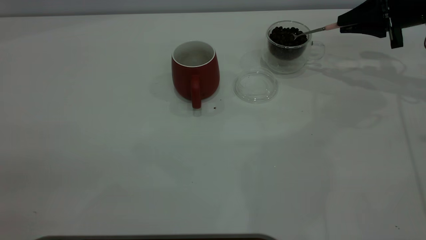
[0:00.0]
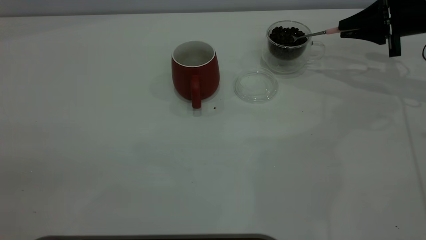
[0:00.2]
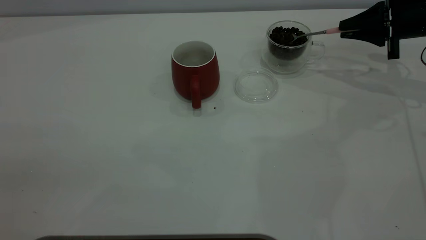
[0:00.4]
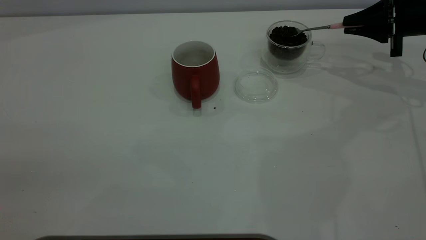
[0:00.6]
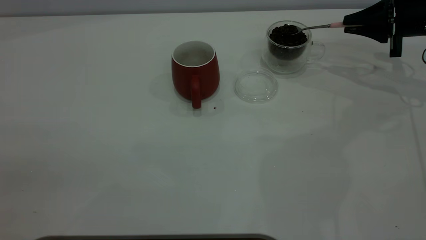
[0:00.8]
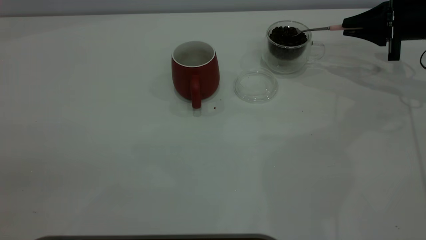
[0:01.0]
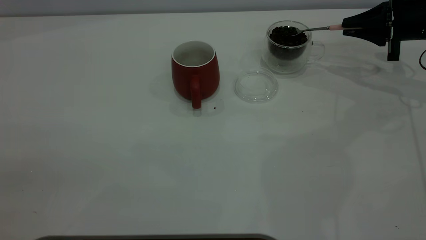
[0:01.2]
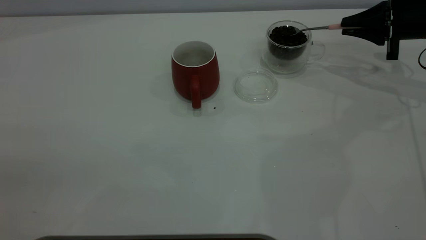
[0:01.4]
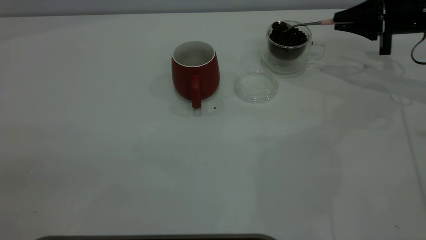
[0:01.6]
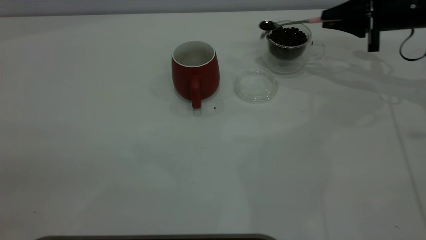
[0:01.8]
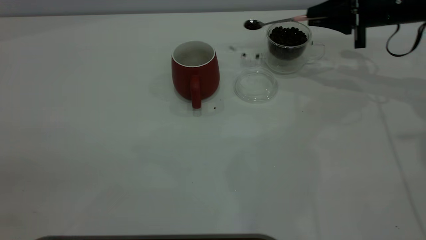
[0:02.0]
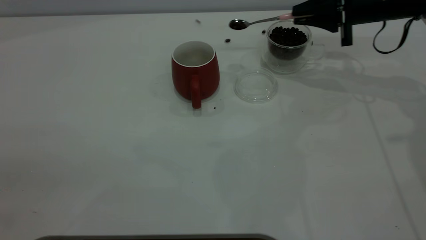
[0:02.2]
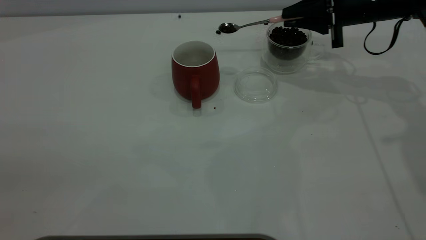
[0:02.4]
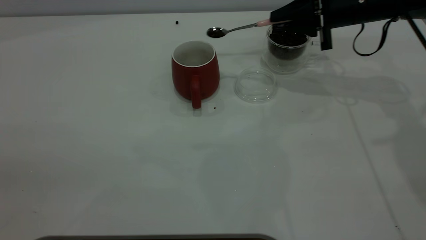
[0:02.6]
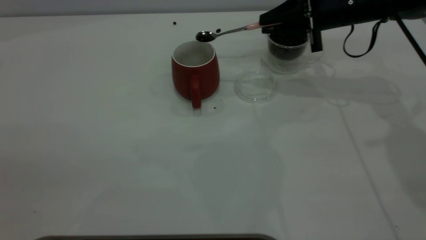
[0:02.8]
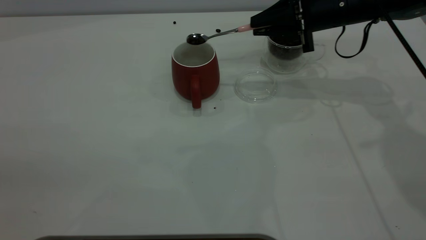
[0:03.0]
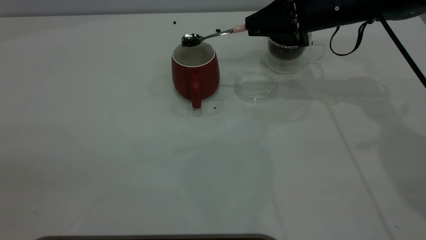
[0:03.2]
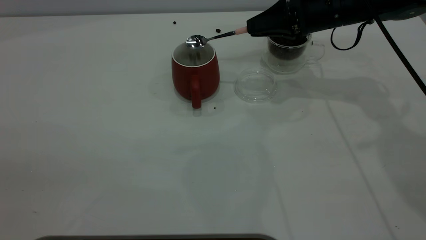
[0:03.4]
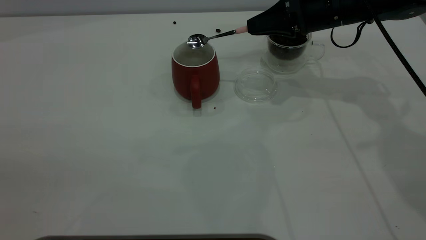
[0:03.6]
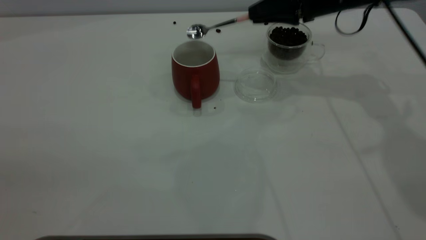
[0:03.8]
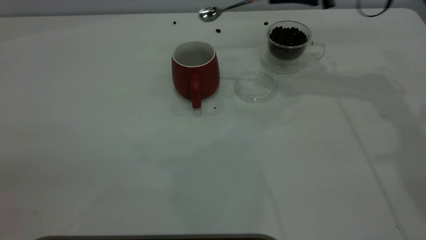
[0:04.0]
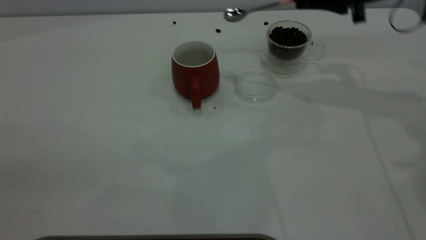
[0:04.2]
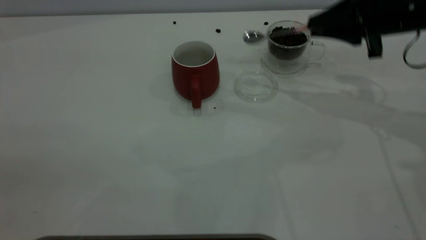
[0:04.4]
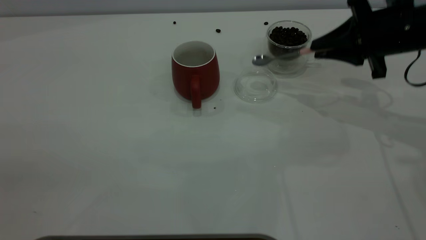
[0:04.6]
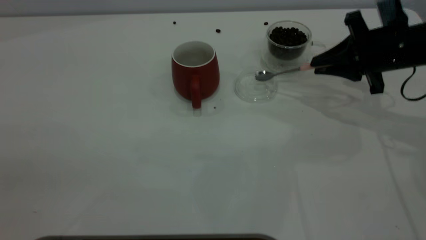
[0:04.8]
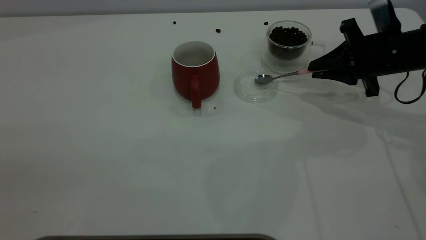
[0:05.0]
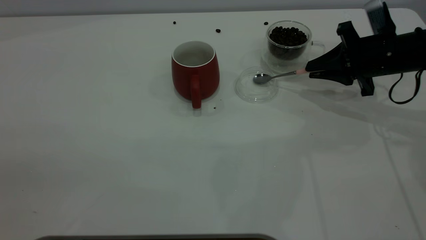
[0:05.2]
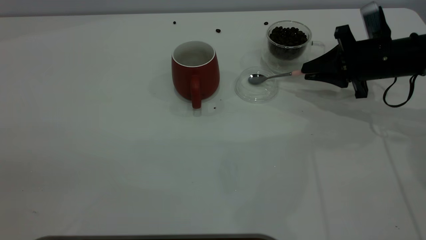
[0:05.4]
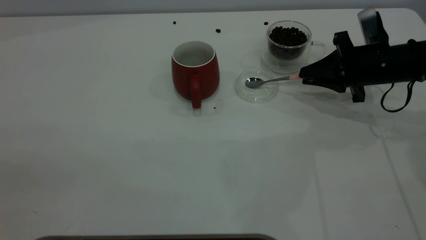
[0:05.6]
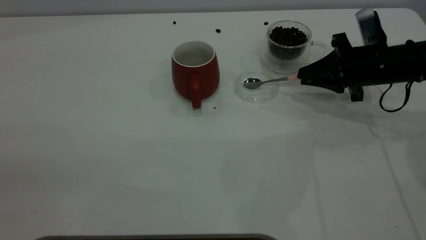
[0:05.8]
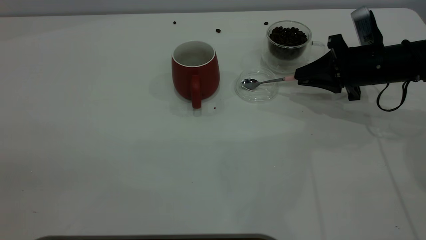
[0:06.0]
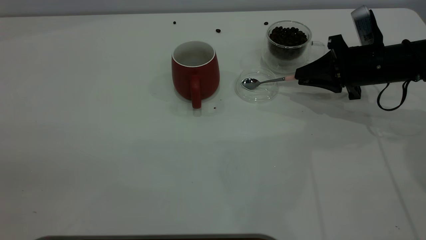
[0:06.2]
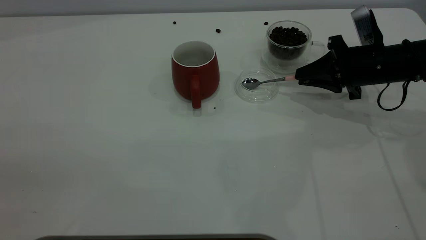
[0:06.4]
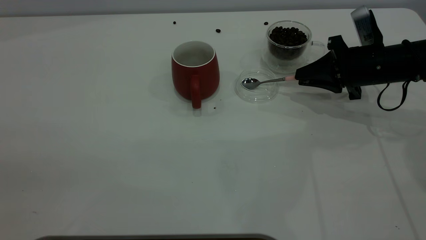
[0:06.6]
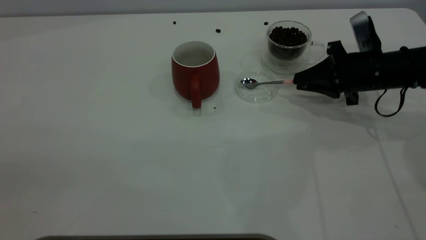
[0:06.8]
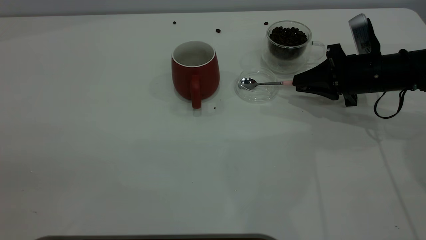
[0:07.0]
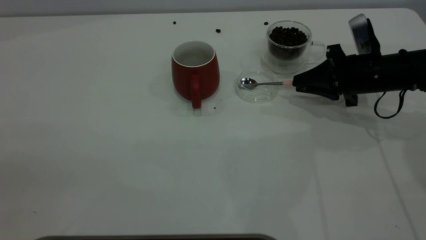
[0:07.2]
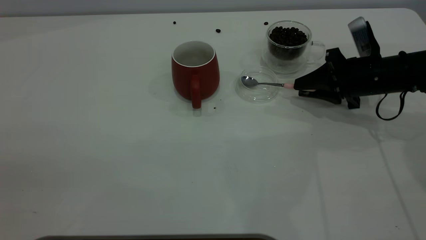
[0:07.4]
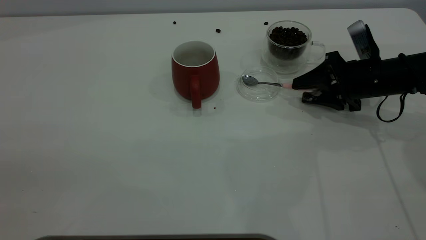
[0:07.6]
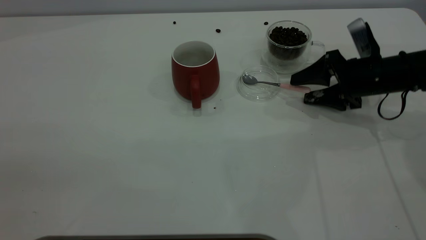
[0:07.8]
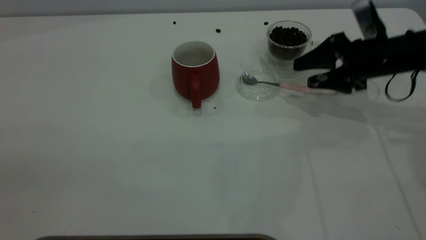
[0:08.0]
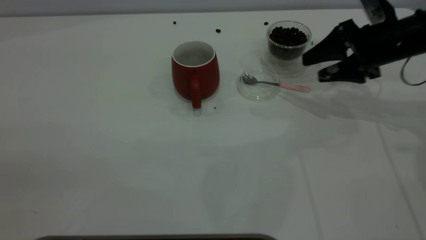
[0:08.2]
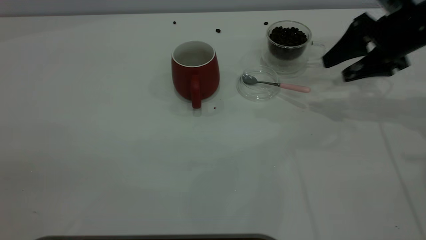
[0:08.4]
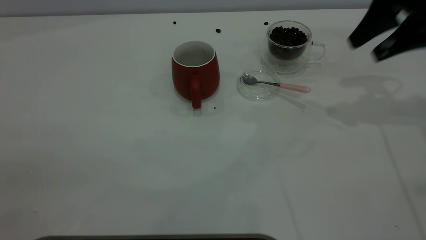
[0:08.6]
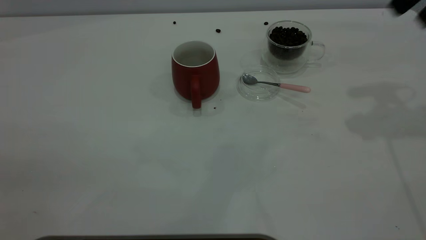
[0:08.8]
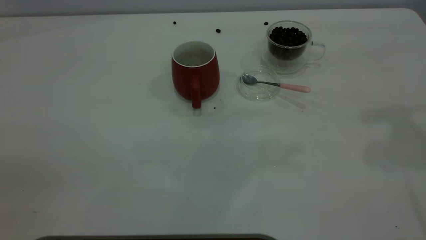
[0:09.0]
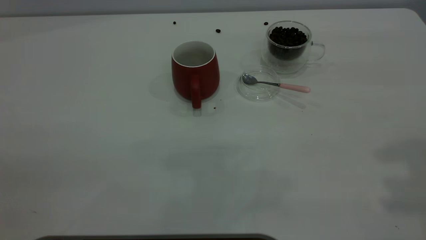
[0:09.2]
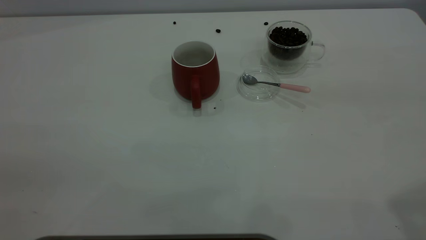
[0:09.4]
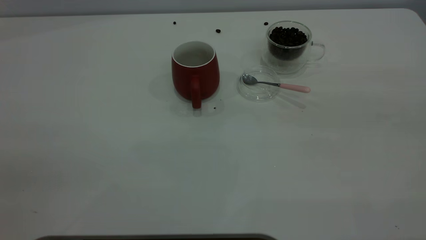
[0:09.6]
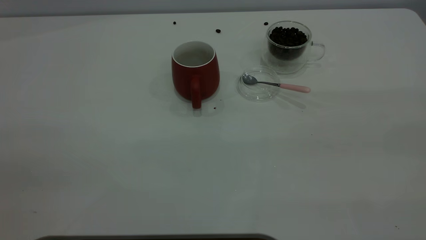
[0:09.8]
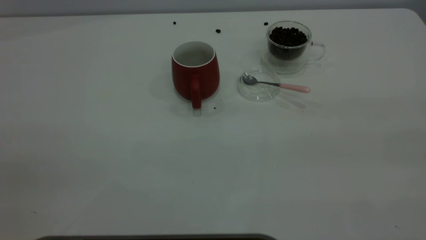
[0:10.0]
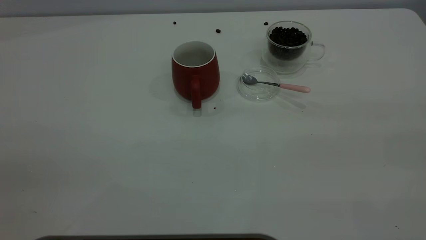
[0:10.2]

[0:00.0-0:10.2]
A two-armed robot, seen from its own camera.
Task of the whole recording: the left gripper place the red cup in the center of the table, the right gripper take the pink spoon from the cup lid and scoop out the coffee beans from the coffee cup and put them into the red cup, the right gripper put the spoon back into the cup lid.
Step, 0:00.0 to 0:03.6: Scoop a spoonful of beans into the cup.
Step, 0:03.8 to 0:08.0: Place the spoon back in its original place.
0:00.0 to 0:01.4: The grippers move only a little.
0:01.4 to 0:03.0: The right gripper moves to the left, some 15 cm.
0:03.0 to 0:04.4: The right gripper shifts approximately 10 cm to the right and backward.
0:04.4 to 0:05.8: The right gripper shifts about 10 cm downward.
0:05.8 to 0:07.2: The grippers move only a little.
0:07.2 to 0:08.8: The right gripper heads upward, covering approximately 25 cm, and opens.

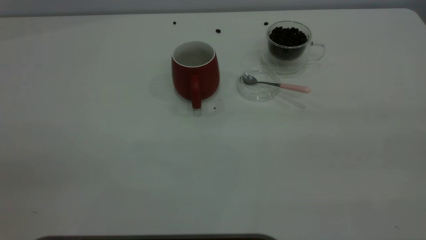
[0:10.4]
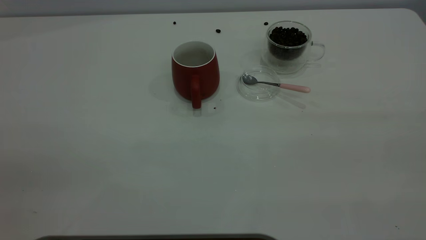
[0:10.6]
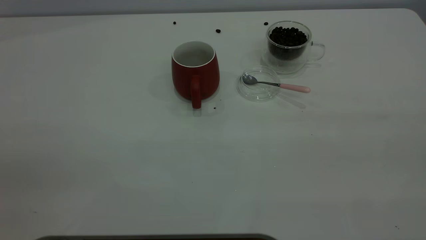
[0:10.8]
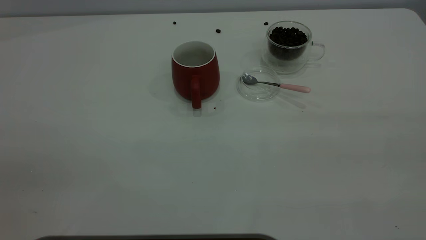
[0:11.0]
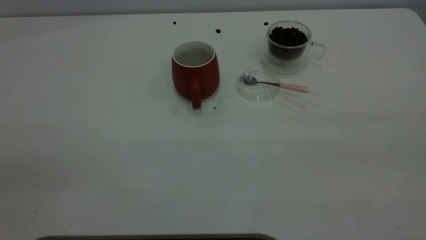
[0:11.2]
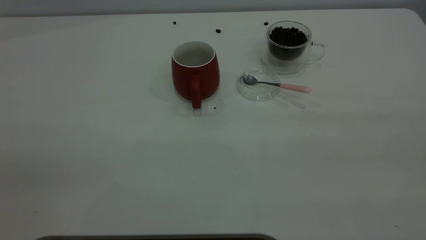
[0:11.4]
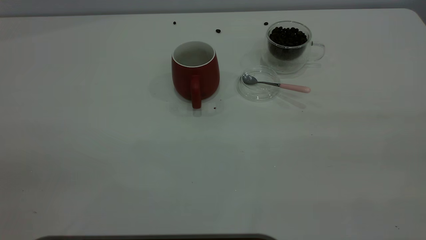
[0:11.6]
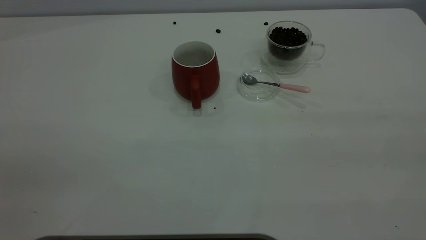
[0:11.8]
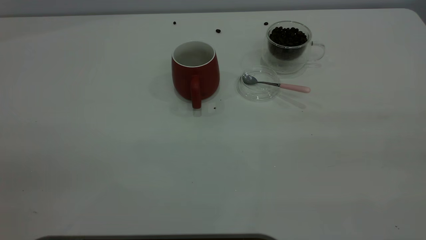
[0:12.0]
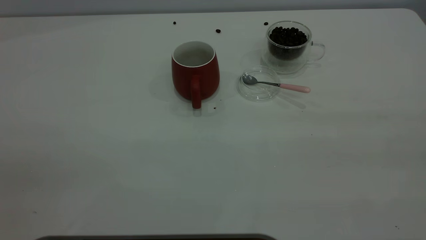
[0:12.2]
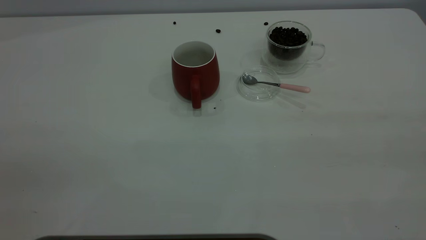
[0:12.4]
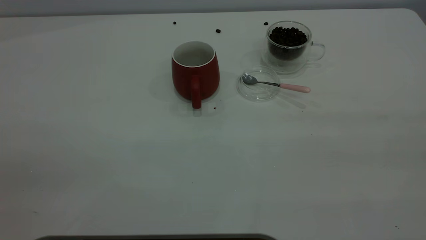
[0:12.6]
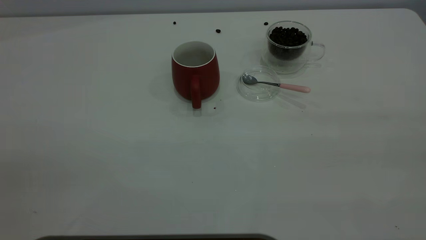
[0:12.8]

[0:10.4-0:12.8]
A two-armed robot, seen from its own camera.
Task of the whole recording: the left gripper place the red cup in the center of the table, the right gripper take the pink spoon from the cup lid and scoop out the coffee beans from the coffee cup and put them into the red cup, the right gripper put the spoon back into the cup lid.
0:11.6 to 0:12.8: The two grippers keep their place.
